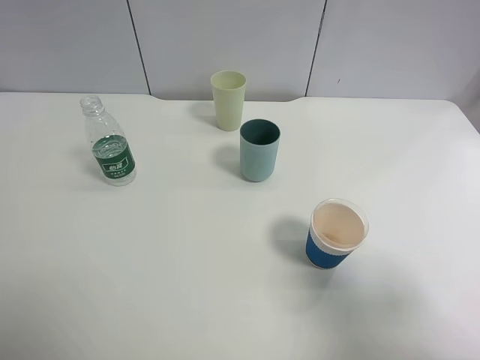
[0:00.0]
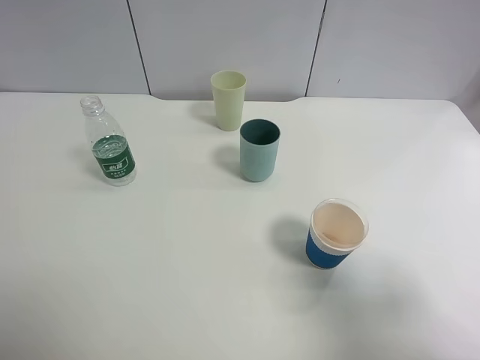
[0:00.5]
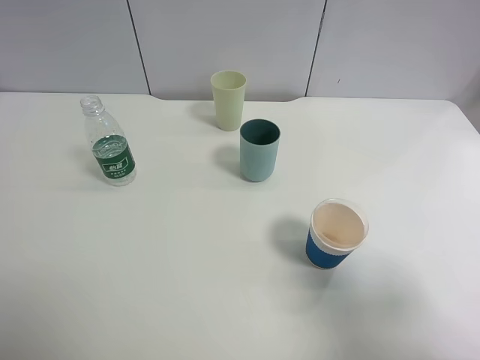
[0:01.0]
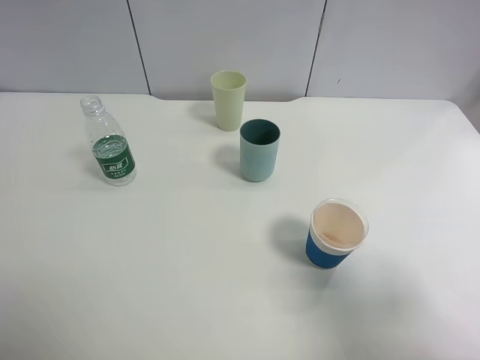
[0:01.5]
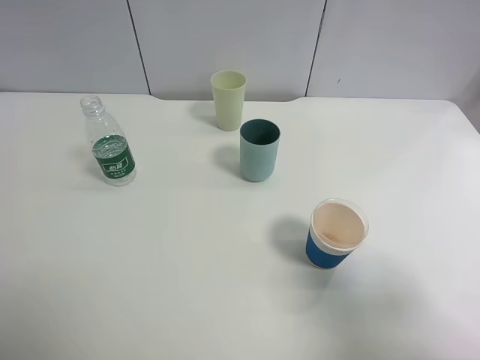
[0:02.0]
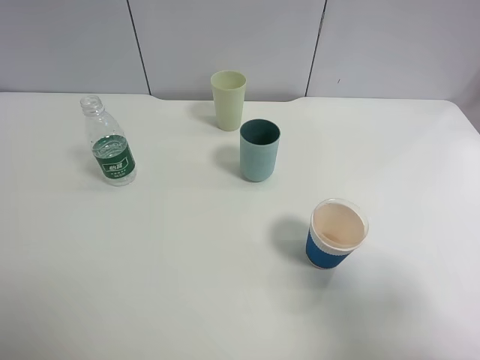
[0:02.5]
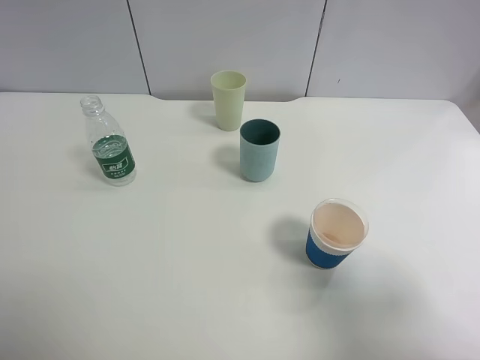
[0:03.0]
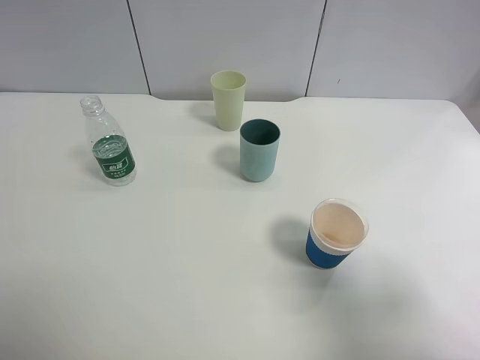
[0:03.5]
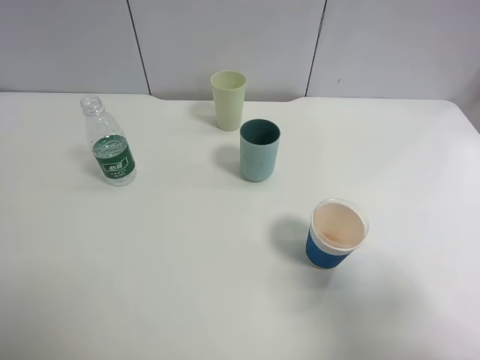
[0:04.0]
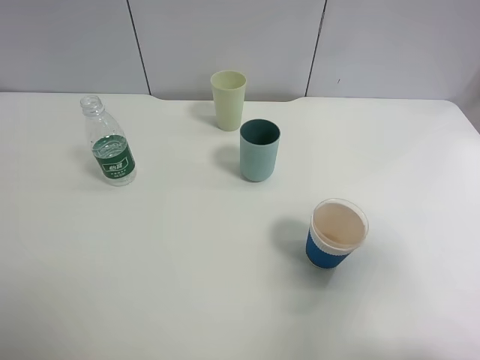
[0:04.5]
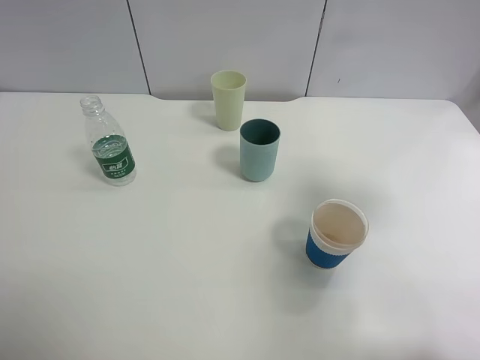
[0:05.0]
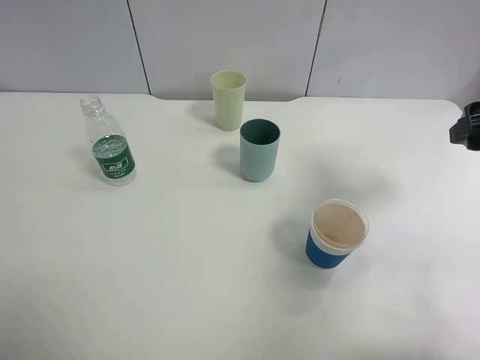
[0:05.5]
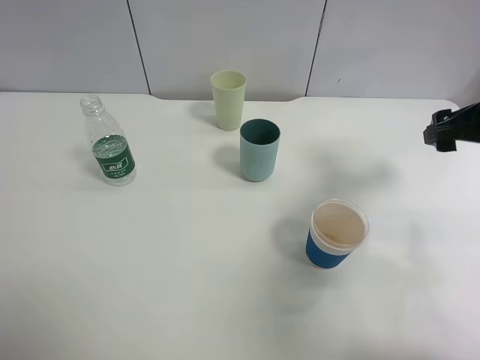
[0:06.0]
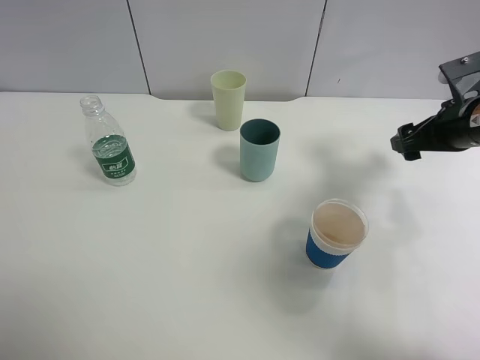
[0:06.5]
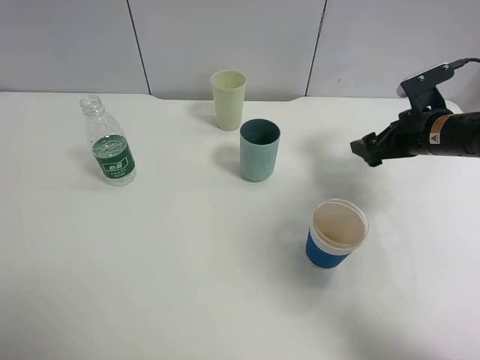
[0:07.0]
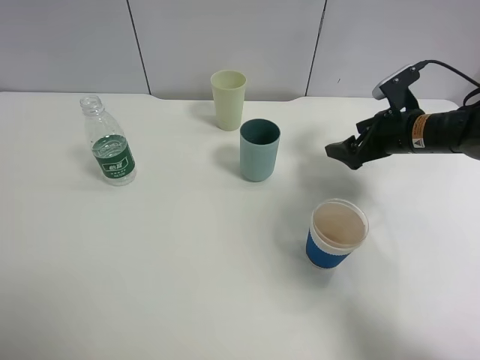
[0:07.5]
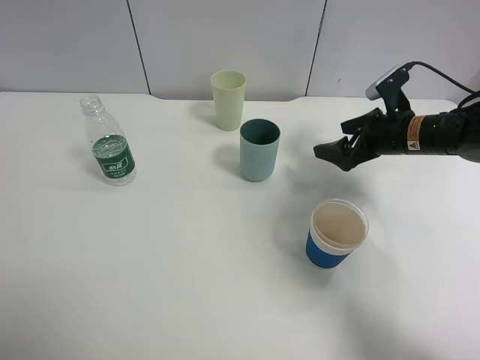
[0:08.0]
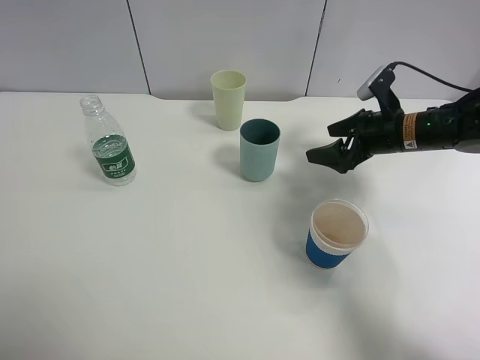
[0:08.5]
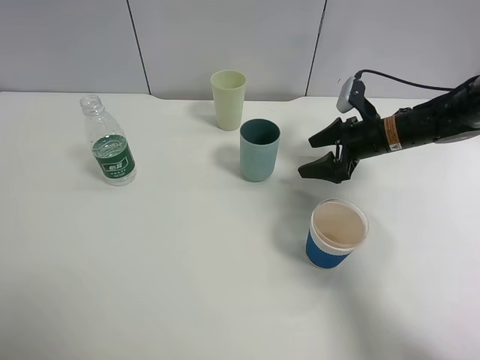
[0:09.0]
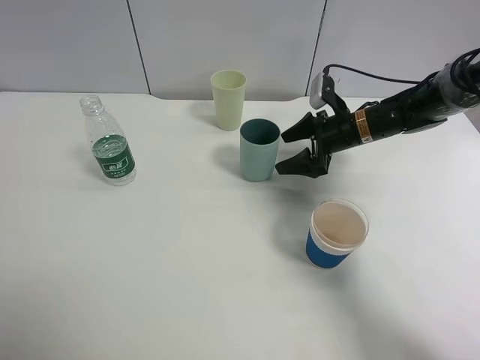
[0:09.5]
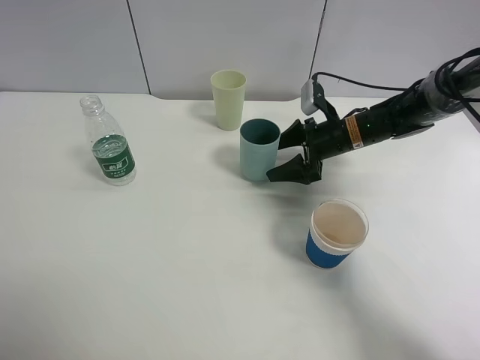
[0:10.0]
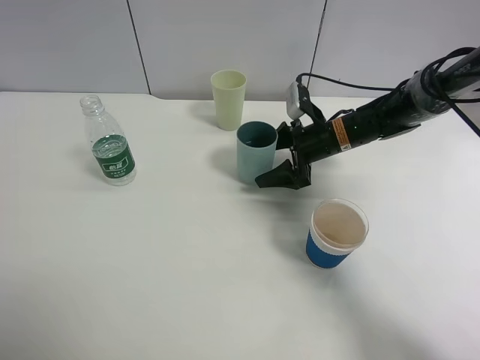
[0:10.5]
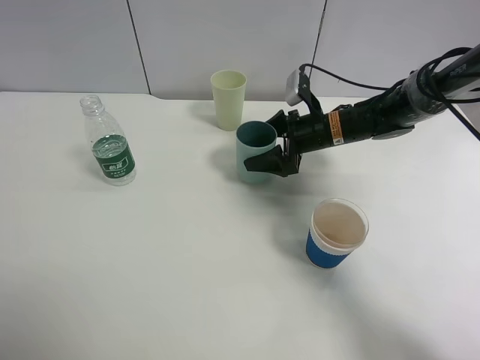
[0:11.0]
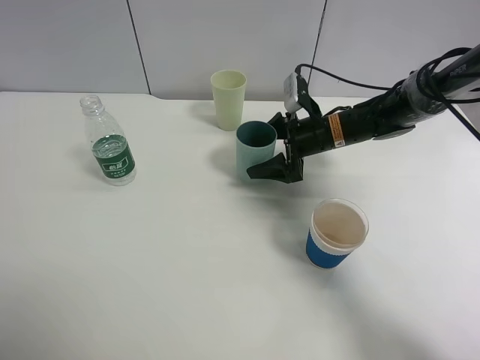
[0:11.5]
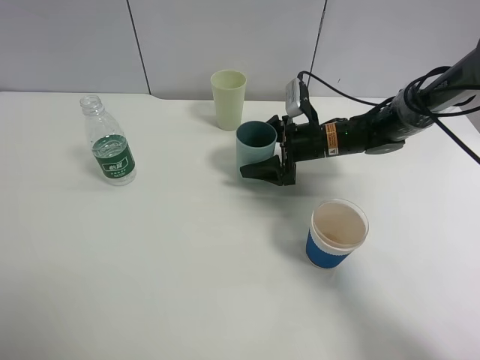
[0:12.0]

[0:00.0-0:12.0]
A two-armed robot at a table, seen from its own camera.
Task of the whole recording: use a clamp to hold the bottle of the drink, pour the beverage into a random cup, then clamp the cup containing the drink and pour the drink into another random cup.
0:02.0 to 0:04.0: The two grippers keep their place.
0:04.0 to 0:06.0: The right gripper is displaced forward by approximately 25 cm.
0:06.0 to 0:08.0: The right gripper travels downward, forward and to the left by approximately 15 cm.
0:08.0 to 0:10.0: The right gripper heads to the left, covering about 5 cm.
0:10.0 to 0:12.0: The grippers make only small movements.

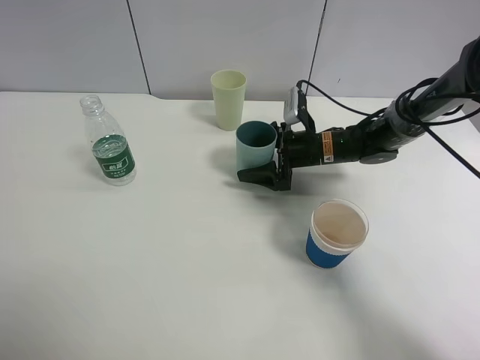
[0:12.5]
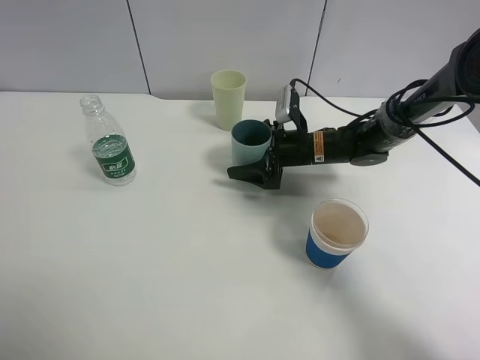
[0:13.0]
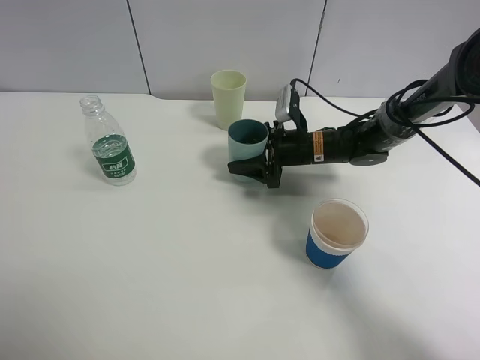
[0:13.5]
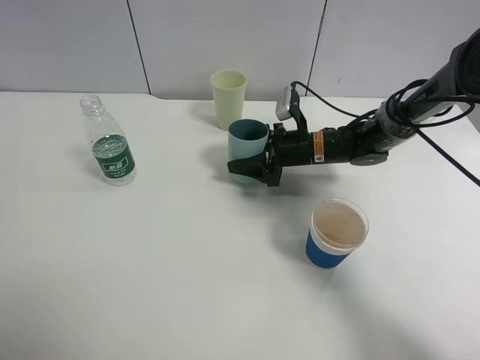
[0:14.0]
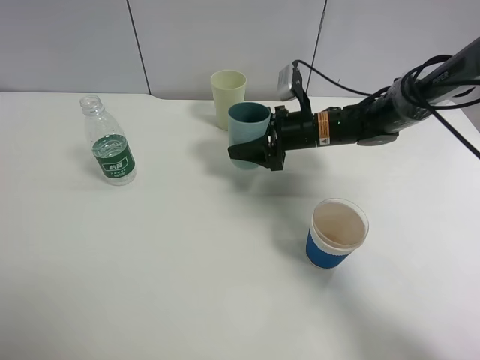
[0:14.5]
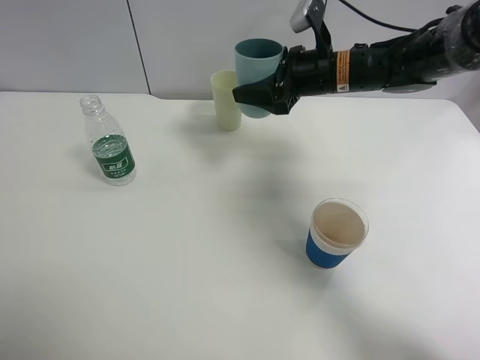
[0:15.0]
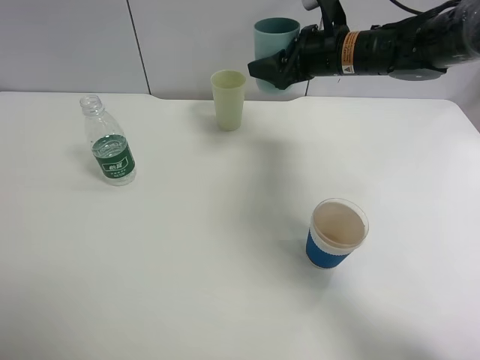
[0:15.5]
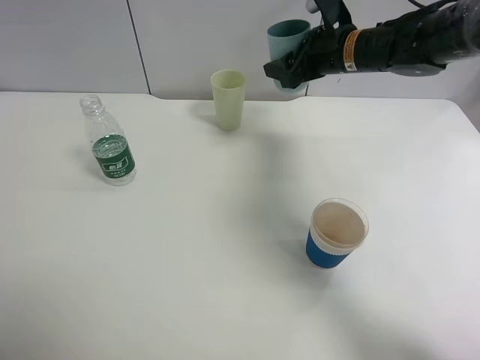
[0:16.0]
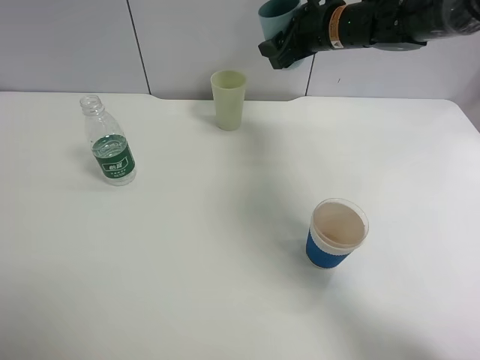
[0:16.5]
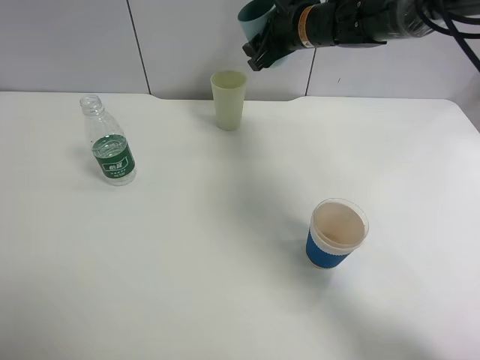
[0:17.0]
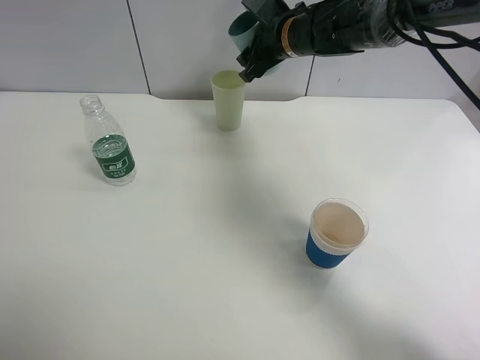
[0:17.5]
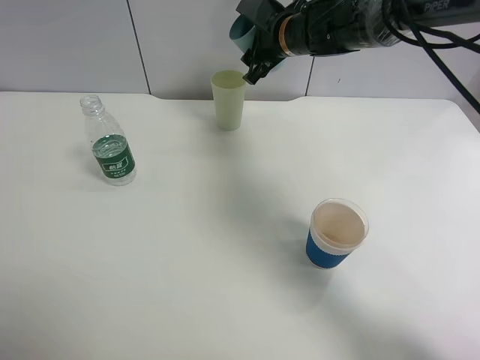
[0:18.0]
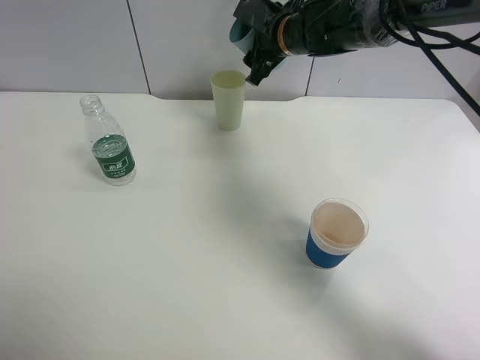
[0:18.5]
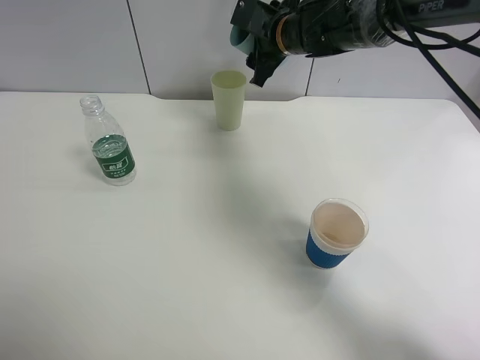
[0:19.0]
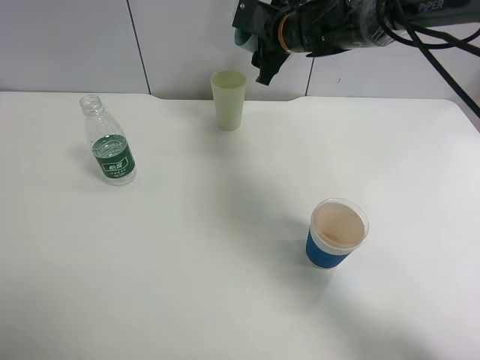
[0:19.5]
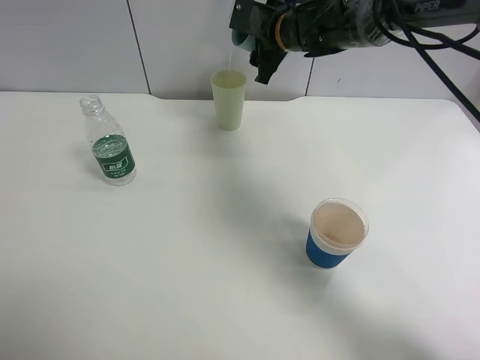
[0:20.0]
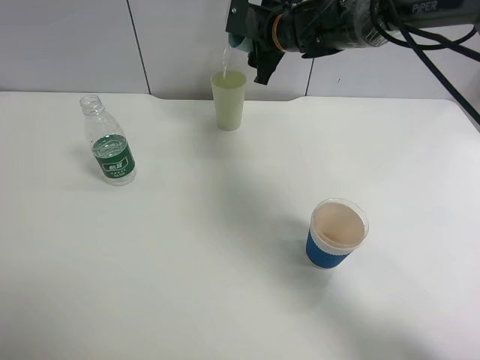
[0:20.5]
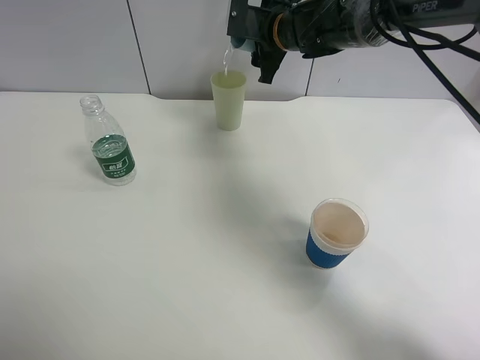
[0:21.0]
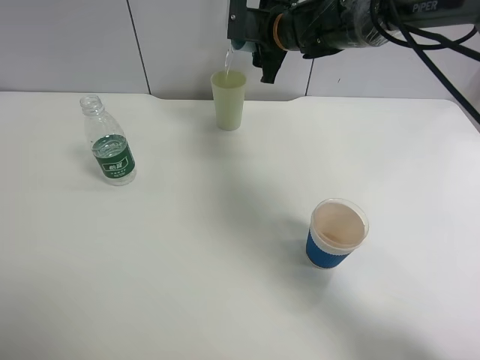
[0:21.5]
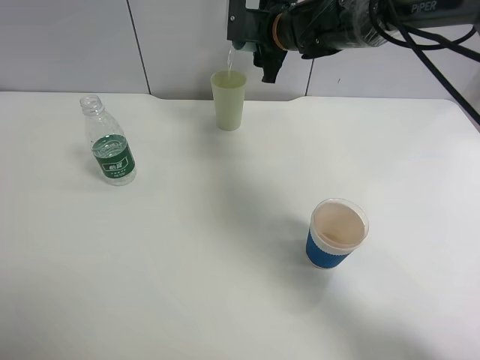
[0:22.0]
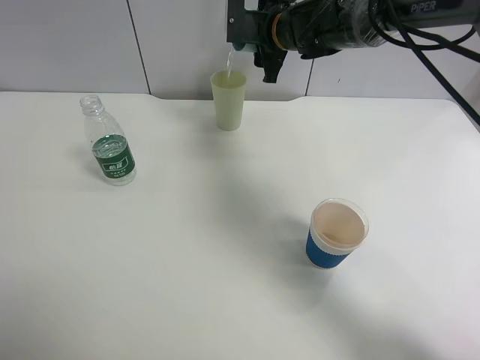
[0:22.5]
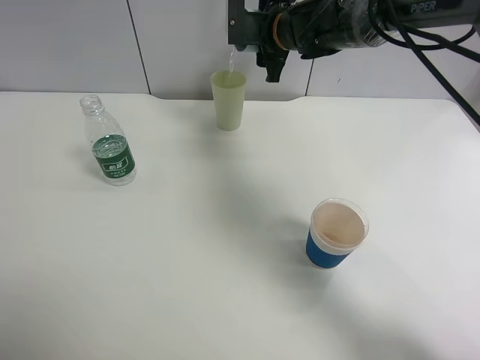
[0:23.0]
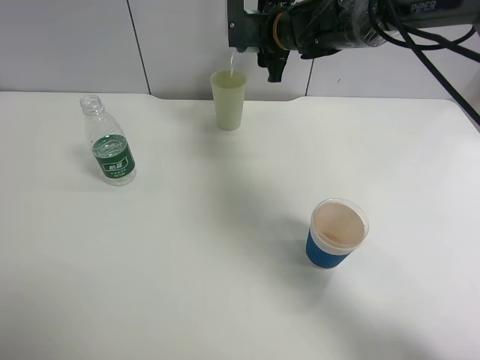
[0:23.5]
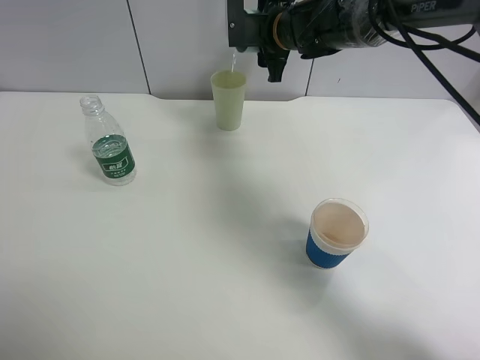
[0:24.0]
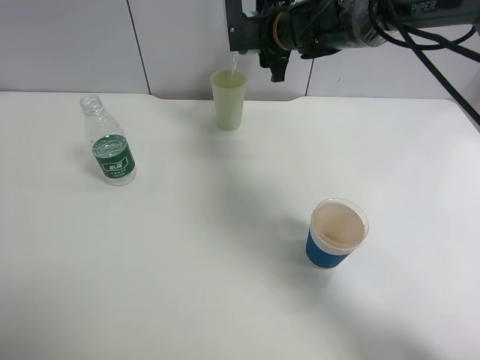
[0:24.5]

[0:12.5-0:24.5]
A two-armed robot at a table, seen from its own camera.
Task of the whole recording: use a clamp to hold the bottle of the drink, pour the beverage into a random cup, then clamp the cup containing the drink and pour the drink into another random cup.
Step, 0:12.5 to 0:14.5: Pick up the blue plastic cup bottle with right gripper.
0:12.5 to 0:14.5: The right gripper moves upward, about 5 cm, and closes its fingers.
0:14.5 to 0:16.5: The right gripper is displaced upward and forward by some 15 cm.
0:16.5 to 0:18.5: The right gripper is displaced to the left by about 5 cm.
0:18.5 to 0:20.5: There are only small adjustments of the grippers.
0:20.5 to 0:22.5: The grippers stay close to where they were, moving slightly.

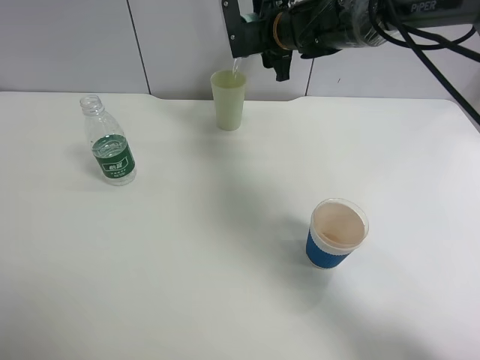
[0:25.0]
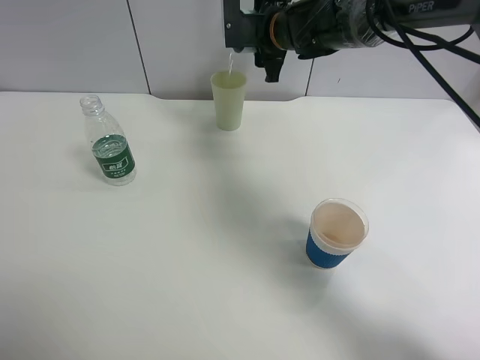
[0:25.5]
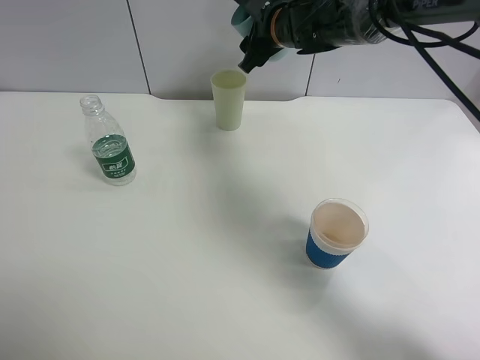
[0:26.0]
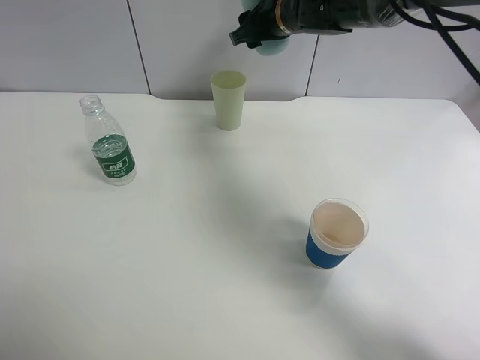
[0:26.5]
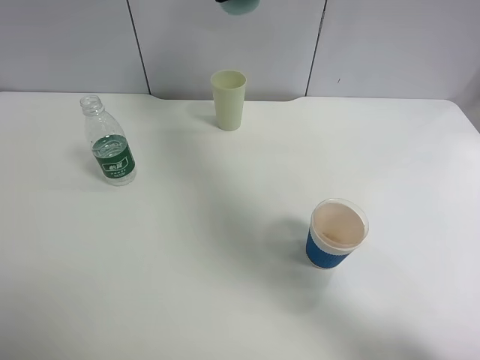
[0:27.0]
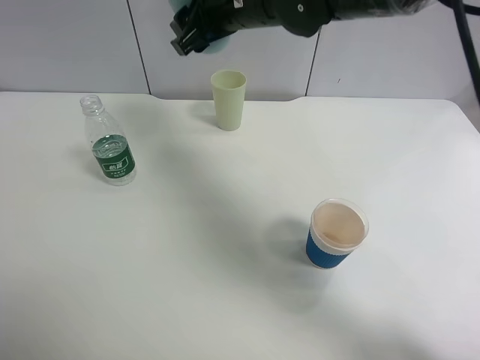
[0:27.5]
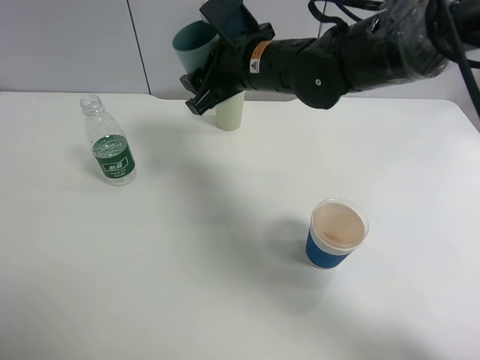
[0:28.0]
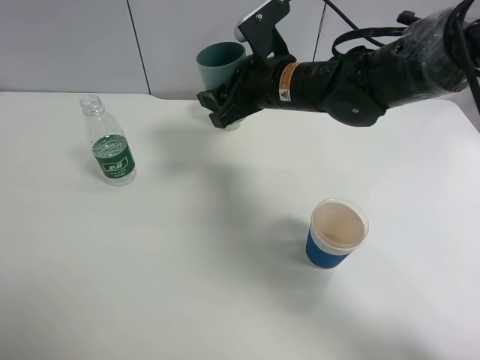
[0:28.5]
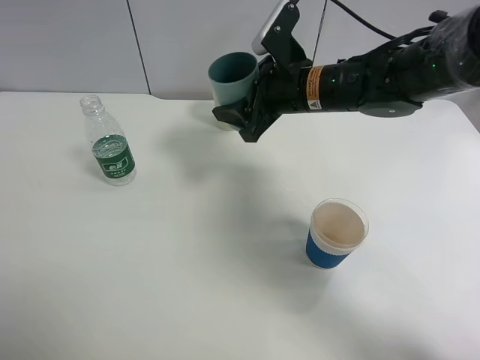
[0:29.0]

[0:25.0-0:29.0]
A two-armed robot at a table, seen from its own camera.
Task of the whole recording: use a clamp to hold the bottle of the drink, pour the beverage into a random cup, then clamp the cup containing the drink and pour the drink into another random cup.
0:25.0 to 0:27.0: The right gripper heads upward and backward, covering about 10 cm.
0:27.0 to 0:29.0: The right gripper moves downward, backward and to the right, approximately 15 cm.
